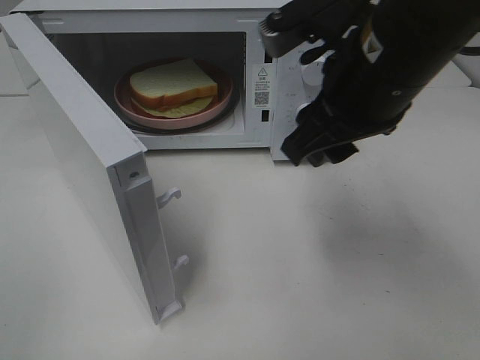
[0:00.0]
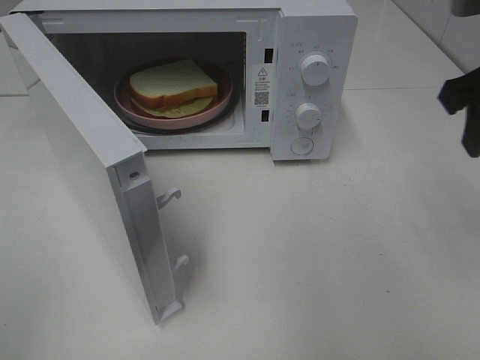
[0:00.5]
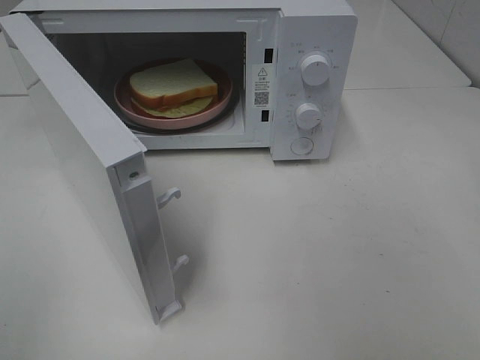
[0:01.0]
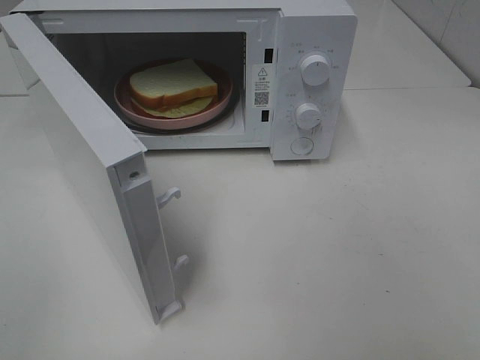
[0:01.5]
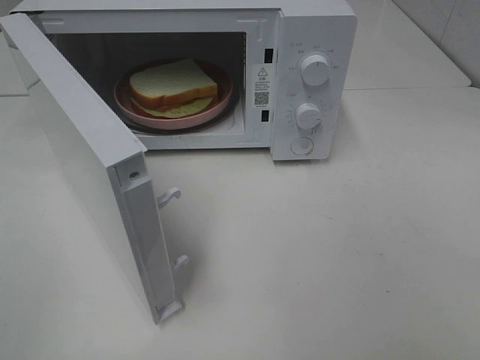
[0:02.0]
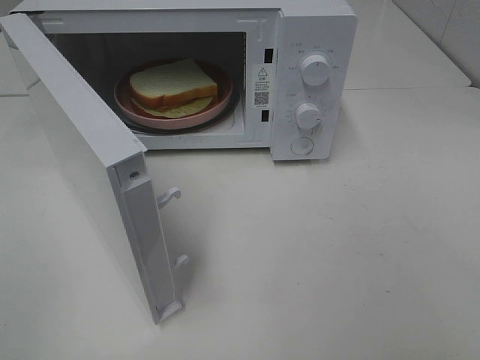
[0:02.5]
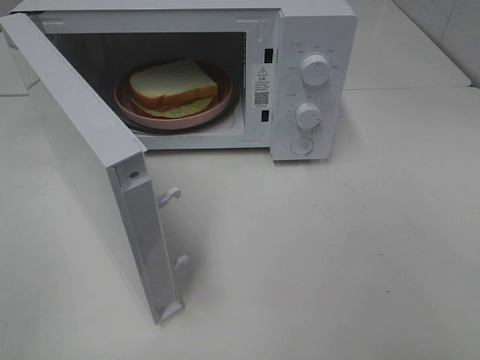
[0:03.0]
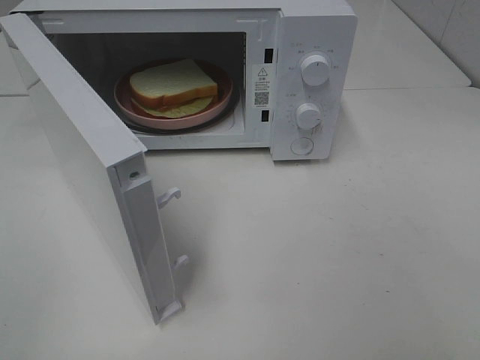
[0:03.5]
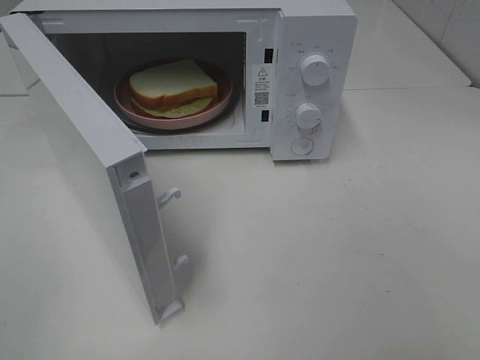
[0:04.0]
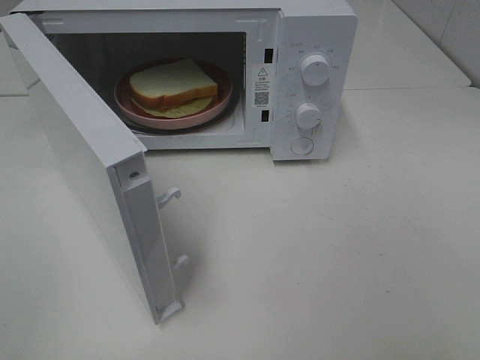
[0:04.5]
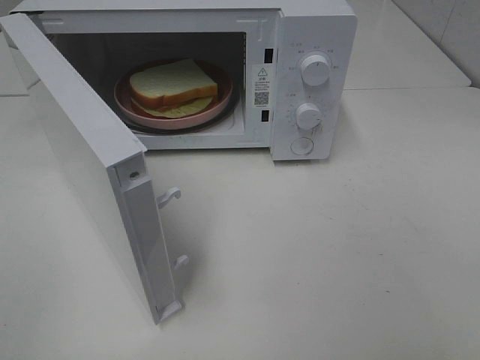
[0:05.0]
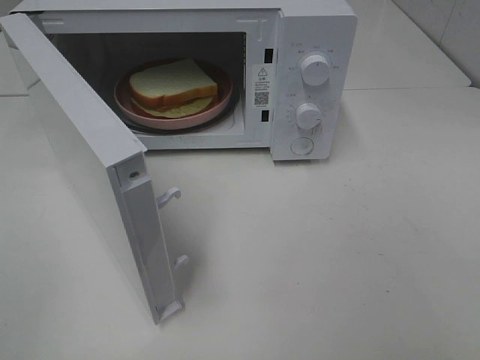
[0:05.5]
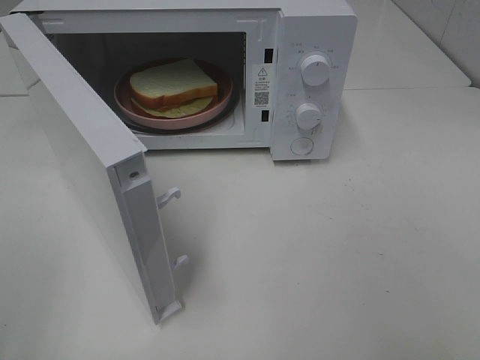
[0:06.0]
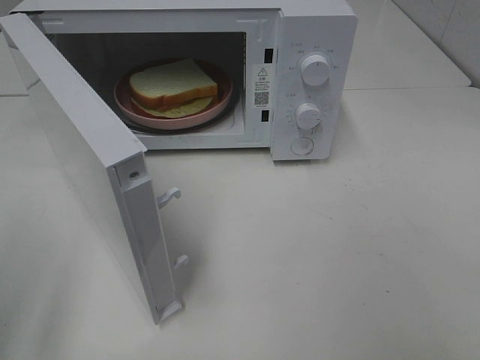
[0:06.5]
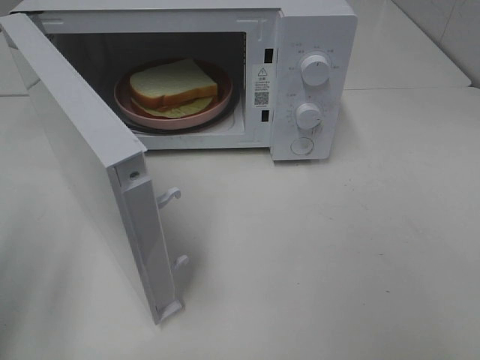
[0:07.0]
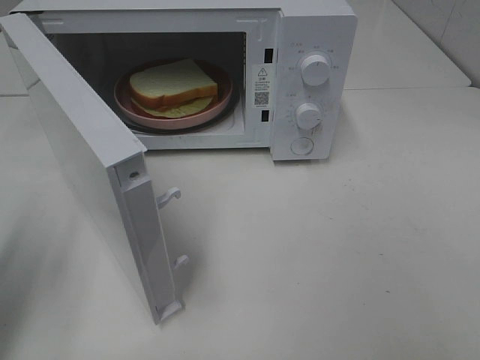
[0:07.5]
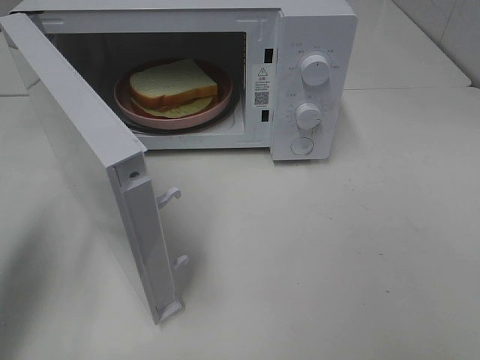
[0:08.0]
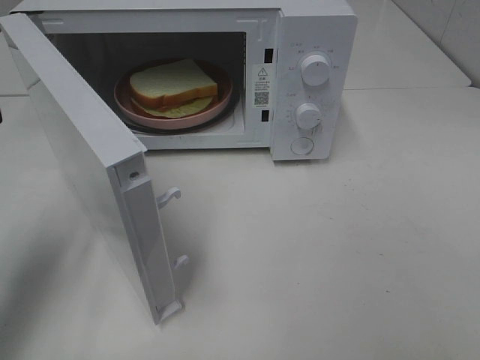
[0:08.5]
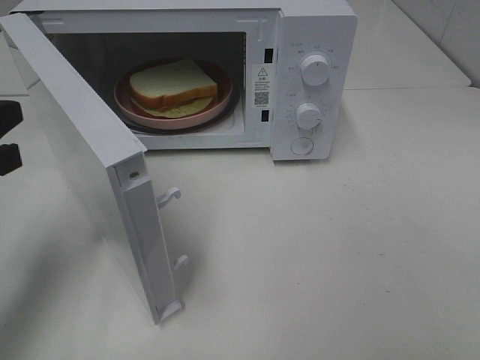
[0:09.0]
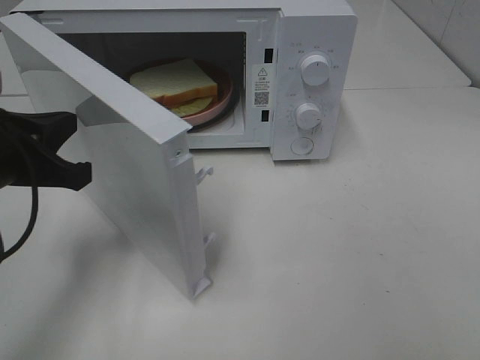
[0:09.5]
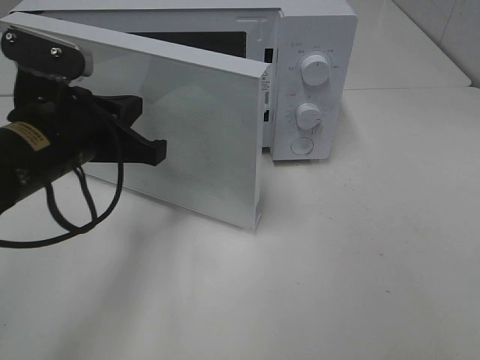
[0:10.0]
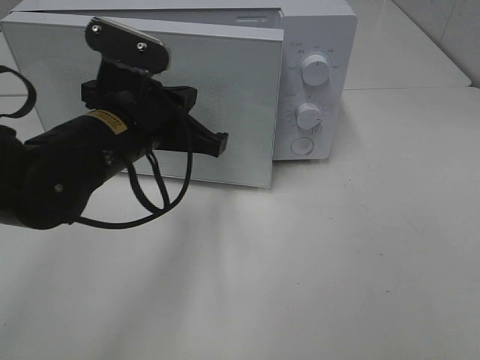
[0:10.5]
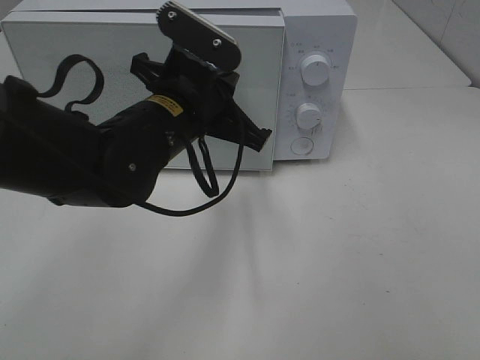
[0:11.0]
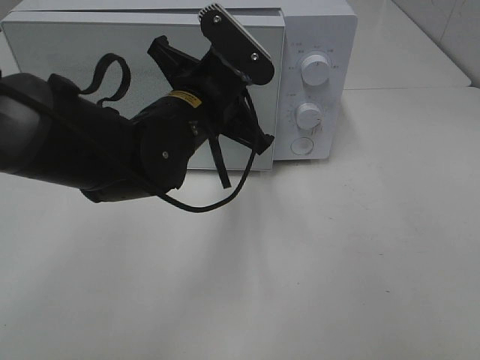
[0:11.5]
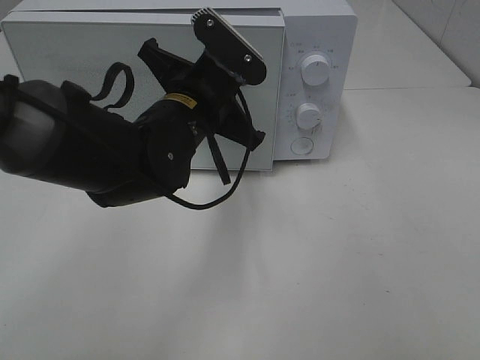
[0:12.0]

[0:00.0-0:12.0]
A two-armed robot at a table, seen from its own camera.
Task of the whole recording: Heat Sandwich.
0:00.0 to 0:02.0: The right gripper shifts roughly 30 cm backward and to the right.
0:06.0 to 0:08.0: The left gripper is displaced forward and downward by roughly 15 cm.
0:08.0 to 0:10.0: The left gripper travels to the right and forward by approximately 15 cm, and closes its fingers.
0:10.0 to 0:12.0: The left gripper shifts roughly 15 cm to the right and forward.

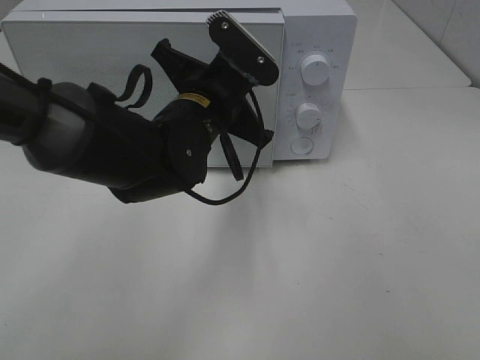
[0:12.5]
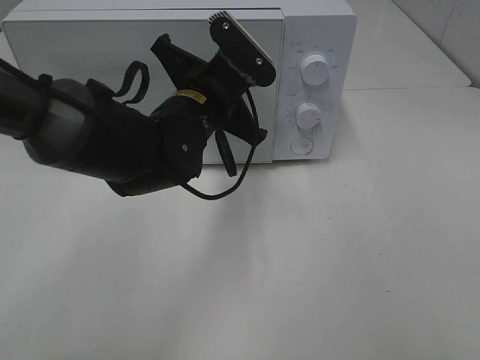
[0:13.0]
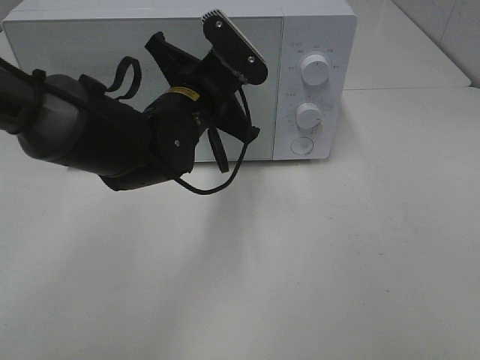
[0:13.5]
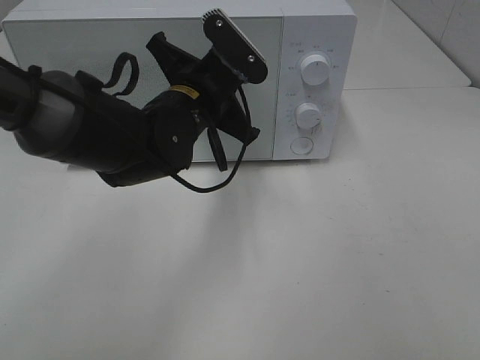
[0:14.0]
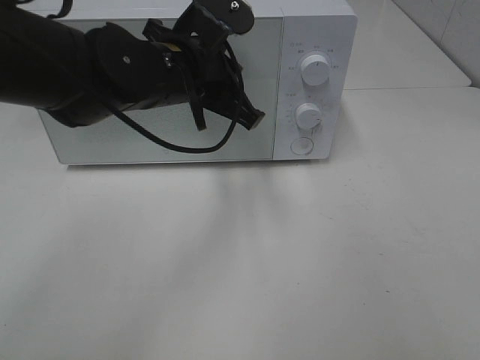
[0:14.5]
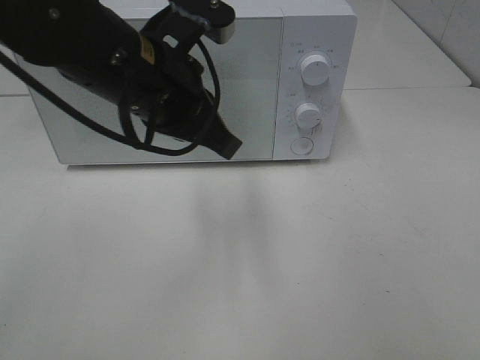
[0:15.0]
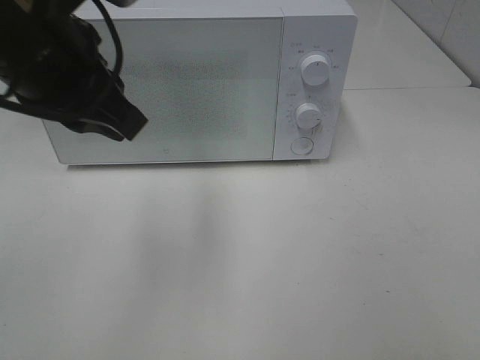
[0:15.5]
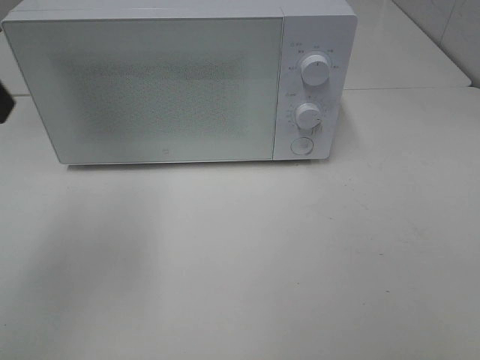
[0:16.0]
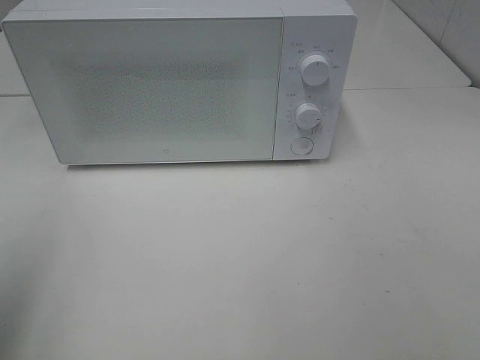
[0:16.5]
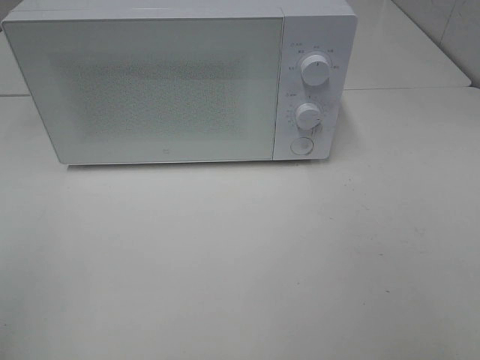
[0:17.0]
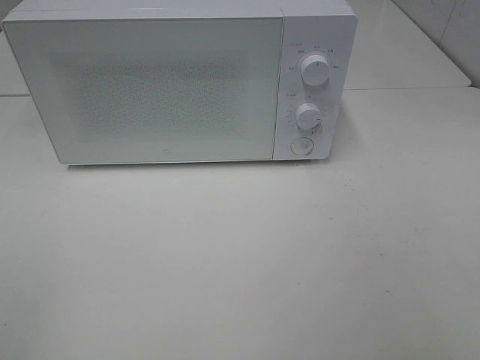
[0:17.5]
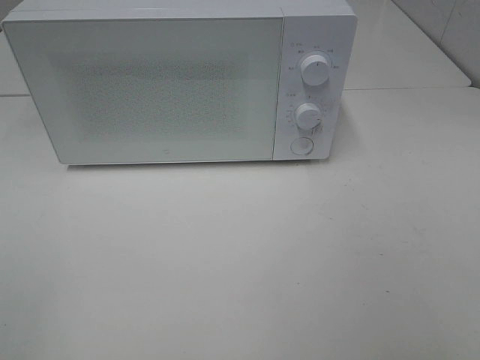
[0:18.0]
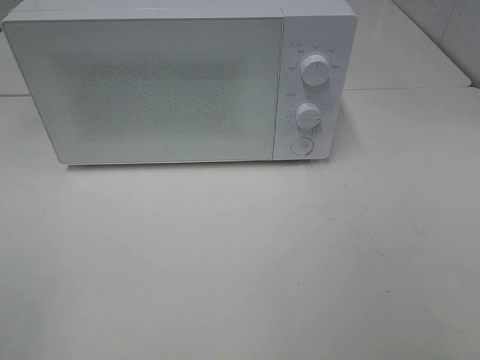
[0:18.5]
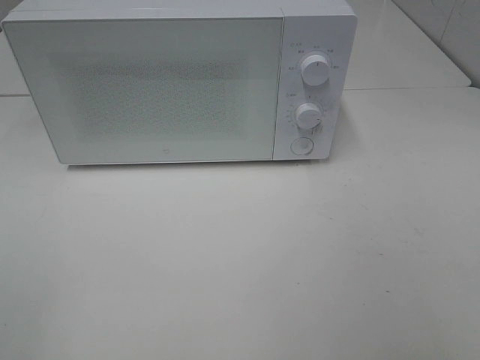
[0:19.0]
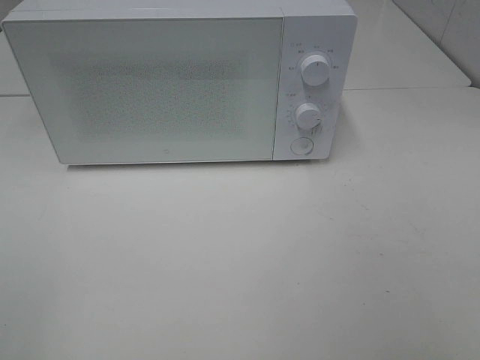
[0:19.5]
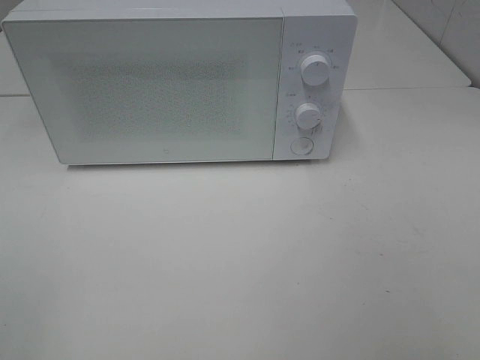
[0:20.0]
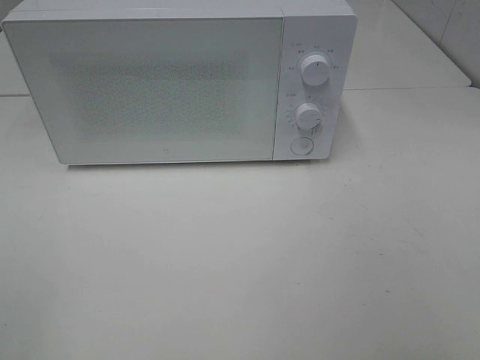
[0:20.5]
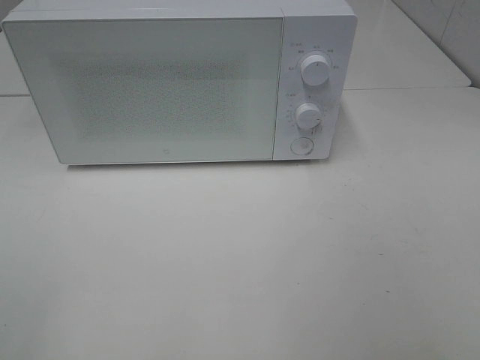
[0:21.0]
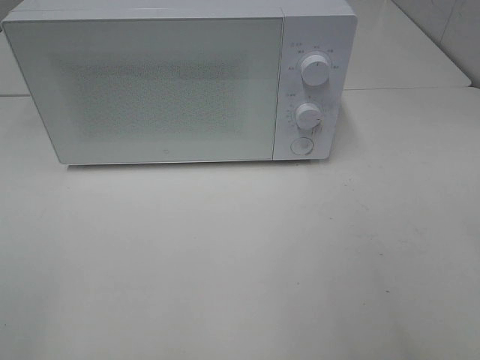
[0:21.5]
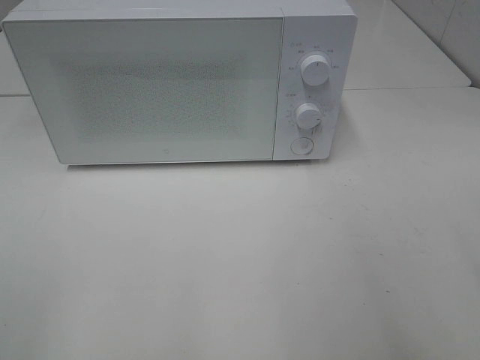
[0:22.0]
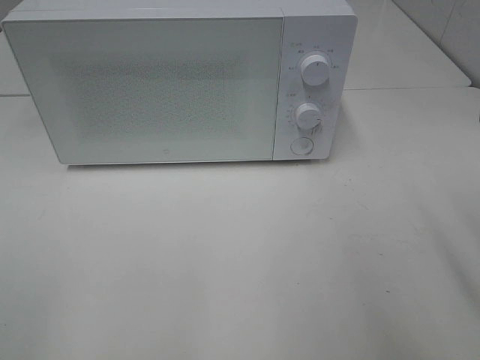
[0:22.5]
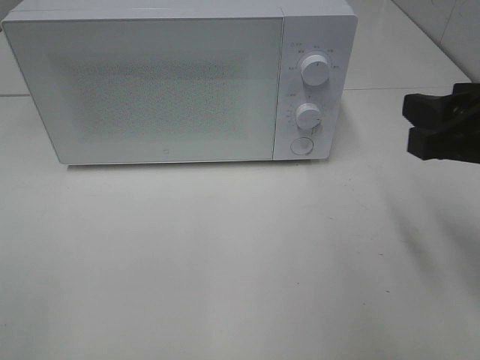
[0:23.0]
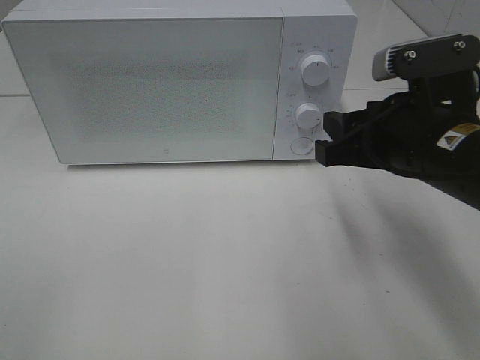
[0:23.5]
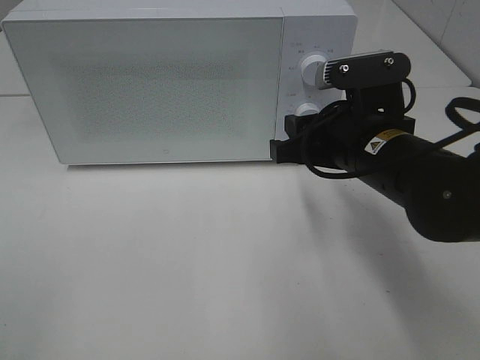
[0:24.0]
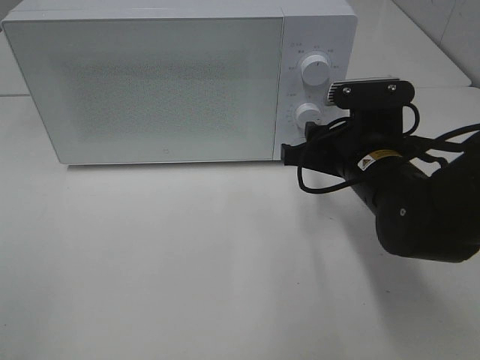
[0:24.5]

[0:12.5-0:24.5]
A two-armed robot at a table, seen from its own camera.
Task of the whole recording: Heat Sandwich.
Step, 0:12.5 to 0:14.5: Left hand: close the microwave door.
0:14.5 to 0:16.5: The left gripper moves to the left, backward and upward, some 35 cm, and opens.
0:16.5 to 0:18.5: The left gripper goes about 10 cm backward.
0:18.5 to 0:20.5: The two grippers keep their place.
0:22.5 to 0:24.5: The right gripper travels forward, downward and to the left by some 25 cm.

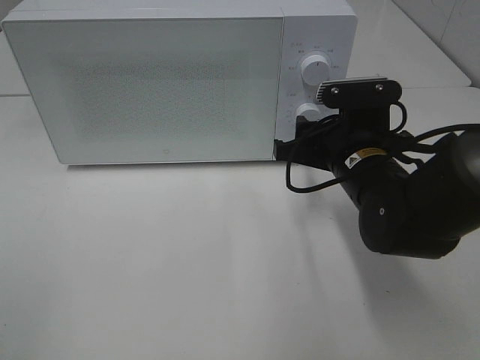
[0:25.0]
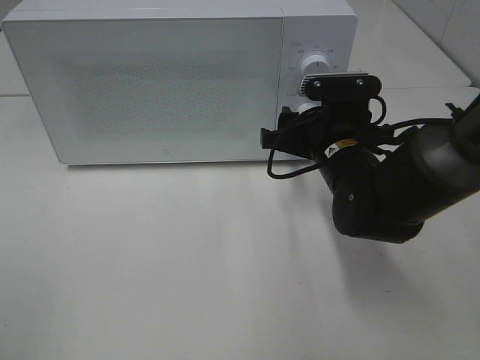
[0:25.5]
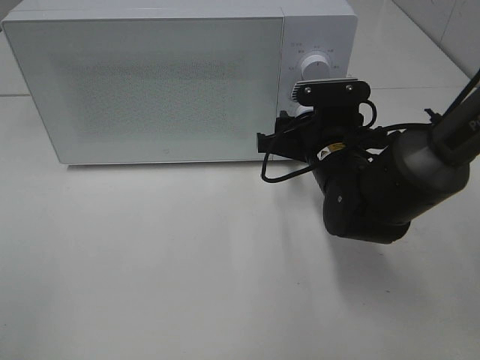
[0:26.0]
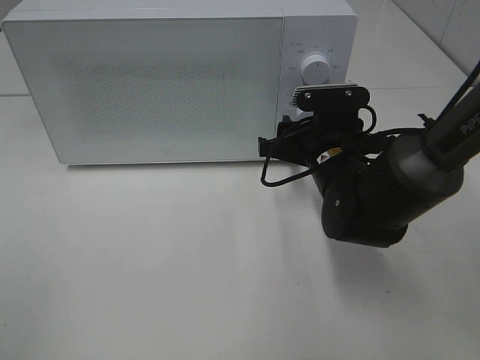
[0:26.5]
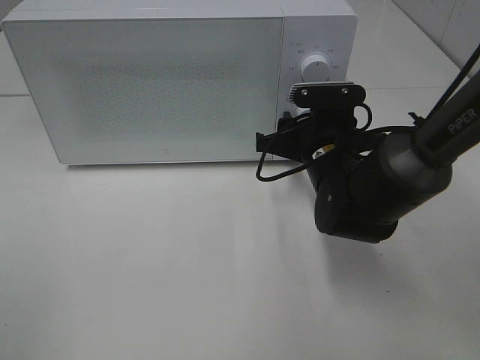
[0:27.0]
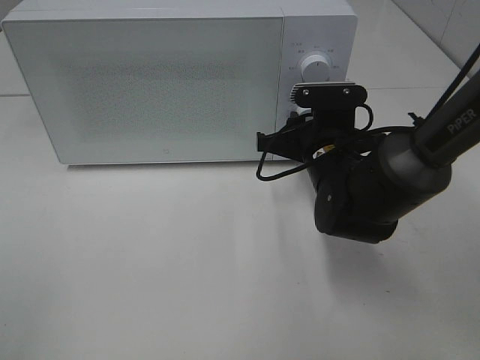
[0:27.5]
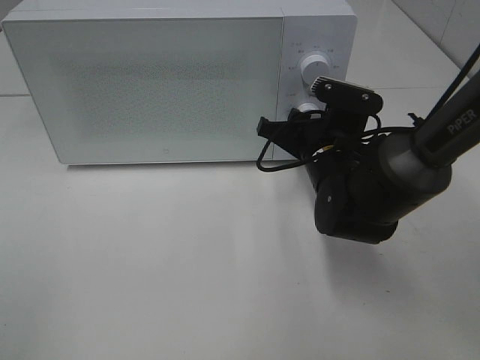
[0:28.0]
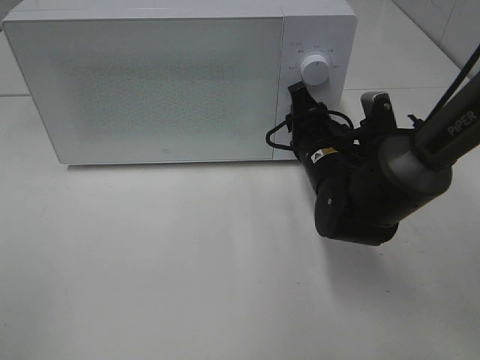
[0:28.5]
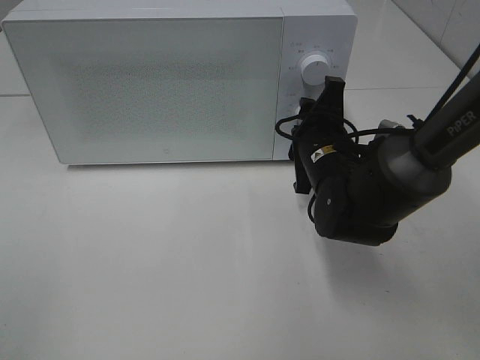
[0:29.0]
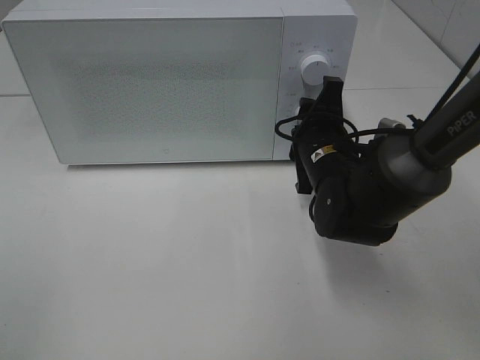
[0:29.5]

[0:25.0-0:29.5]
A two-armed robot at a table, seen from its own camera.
Task of the whole recording: Heat Sandwich.
0:25.0 to 0:27.0: The right gripper ends up approximately 5 cm from where it was.
